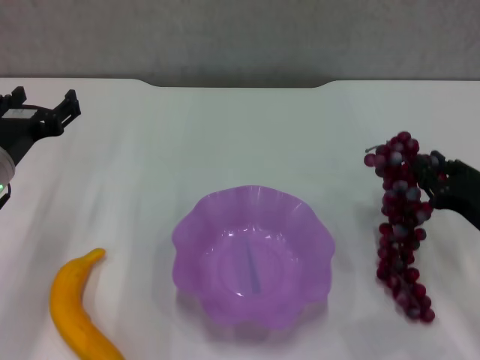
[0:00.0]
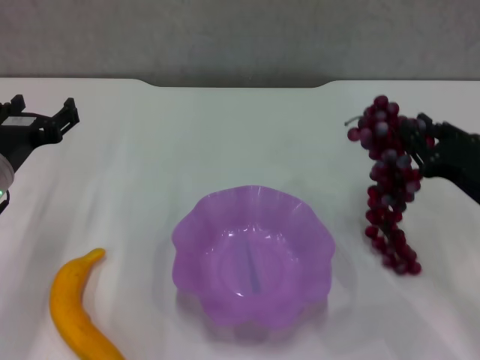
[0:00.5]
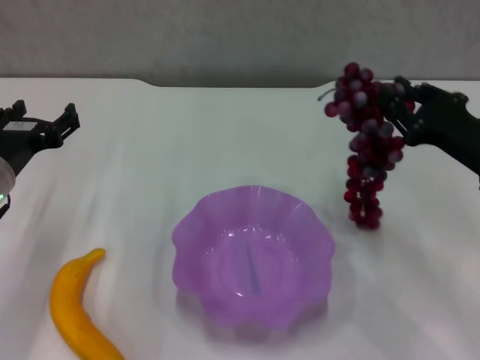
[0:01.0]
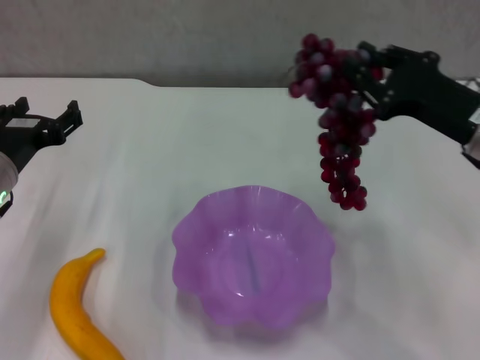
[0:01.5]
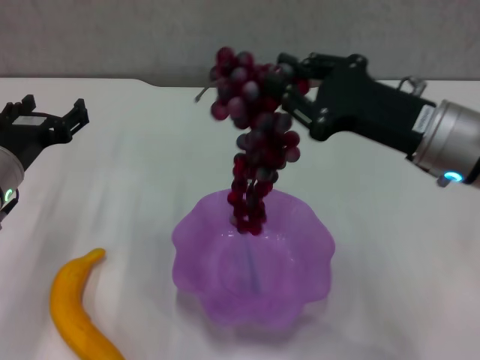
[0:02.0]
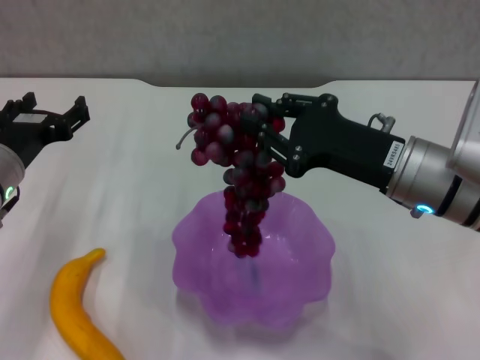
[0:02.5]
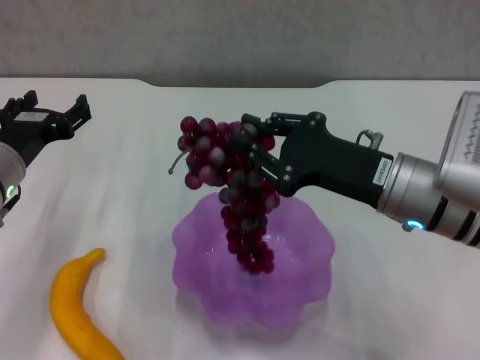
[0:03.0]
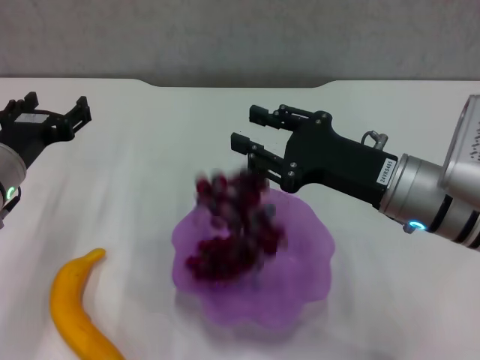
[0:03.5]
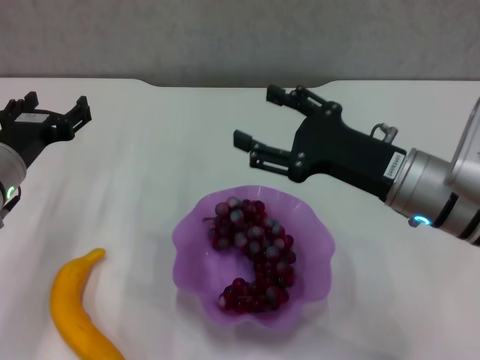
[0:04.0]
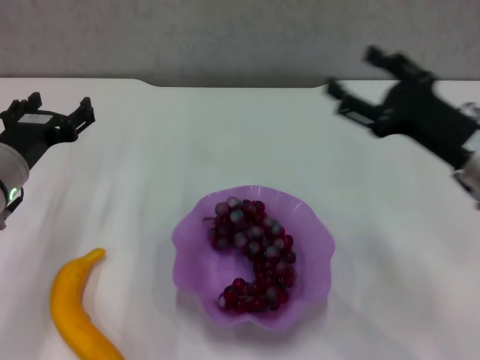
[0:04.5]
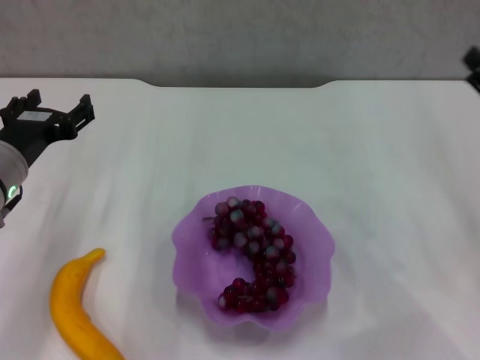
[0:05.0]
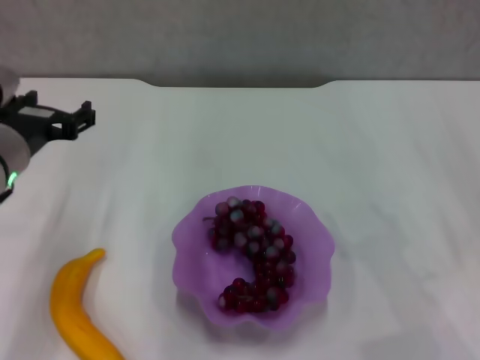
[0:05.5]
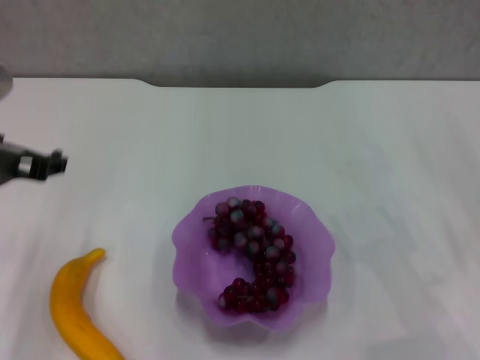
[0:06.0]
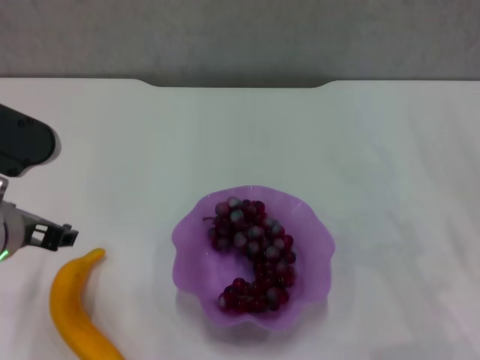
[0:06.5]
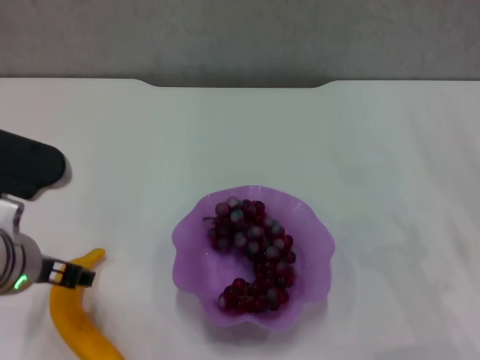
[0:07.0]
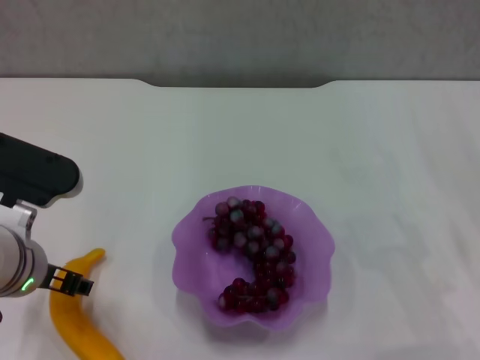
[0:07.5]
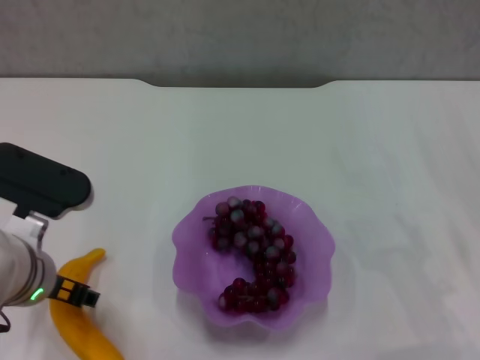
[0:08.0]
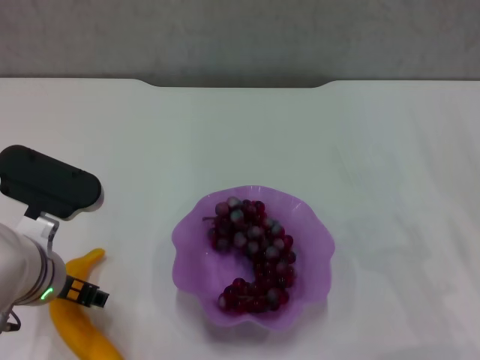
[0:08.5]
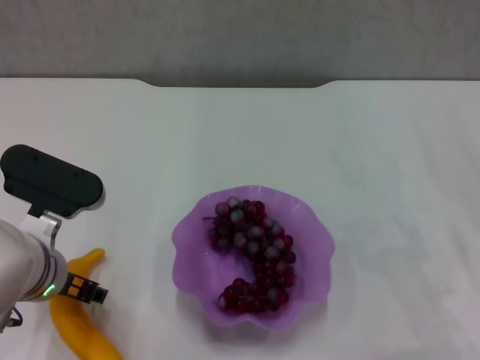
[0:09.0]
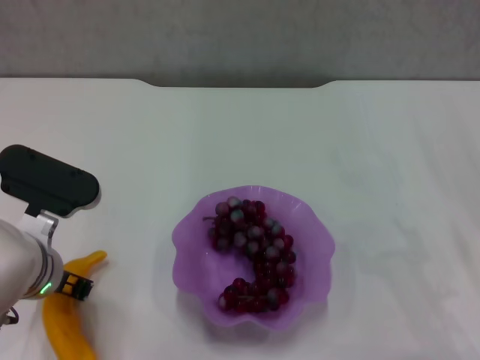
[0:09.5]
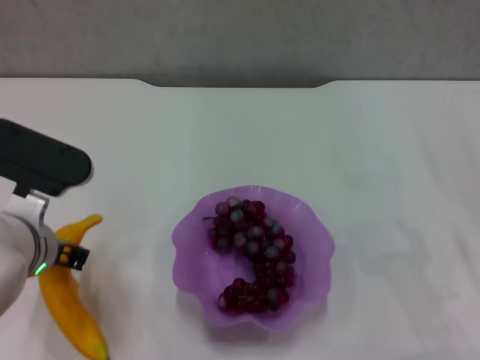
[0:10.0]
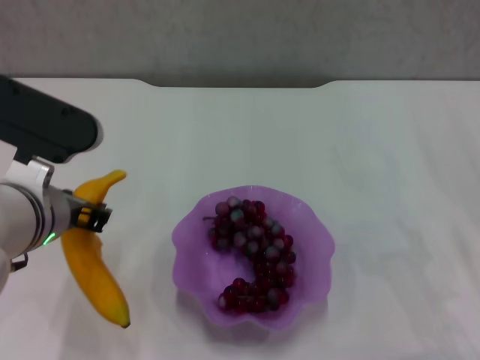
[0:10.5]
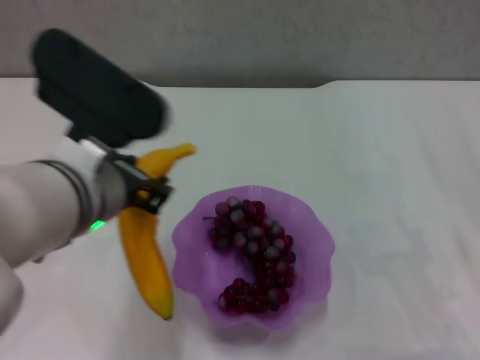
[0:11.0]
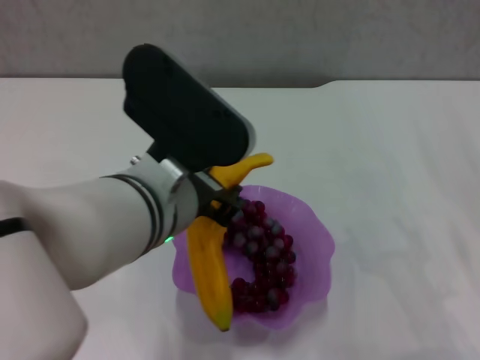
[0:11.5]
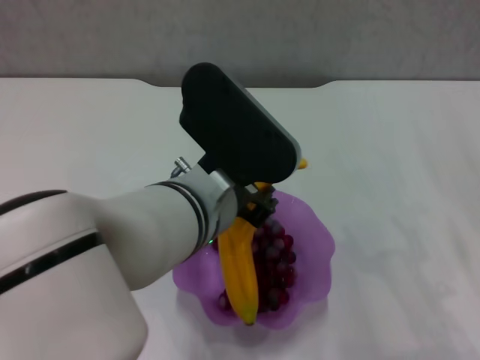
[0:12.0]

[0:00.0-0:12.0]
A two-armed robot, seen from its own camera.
Step, 0:00.0 to 0:03.5: Place the grape in the purple plate with right gripper.
Step, 0:04.0 to 0:09.5: Grasp the banana with left gripper.
0:00.0 to 0:02.0: The right gripper moves upward and to the left, roughly 15 cm.
0:02.0 to 0:04.0: The right gripper opens its fingers.
0:04.0 to 0:06.0: The left gripper is displaced upward and backward by about 10 cm. The right gripper travels to the right by roughly 15 cm.
0:06.0 to 0:08.0: The left gripper heads downward, covering some 10 cm.
0:08.0 to 0:10.0: The left gripper closes.
0:10.0 to 0:12.0: The left gripper goes some 15 cm to the right and upward.

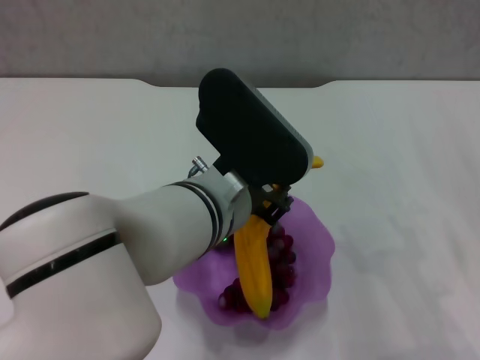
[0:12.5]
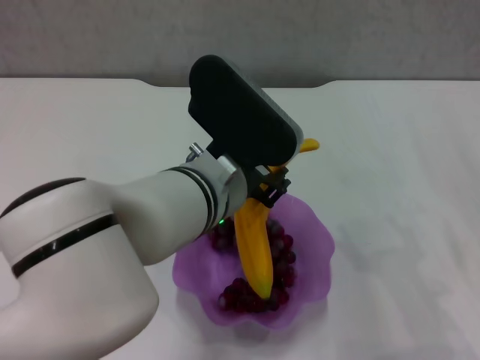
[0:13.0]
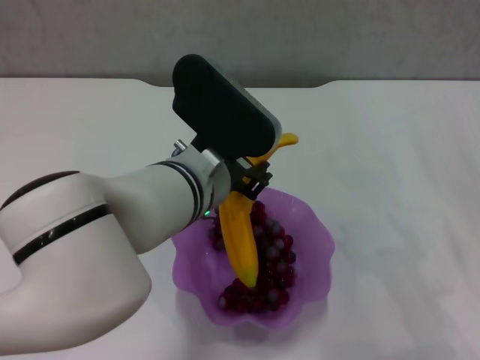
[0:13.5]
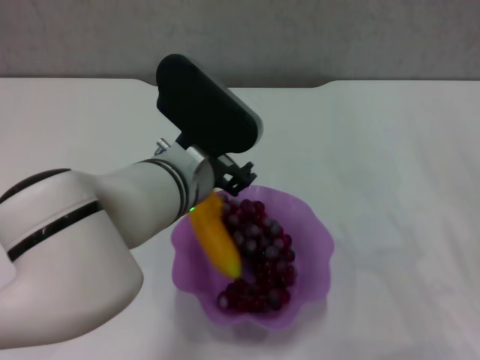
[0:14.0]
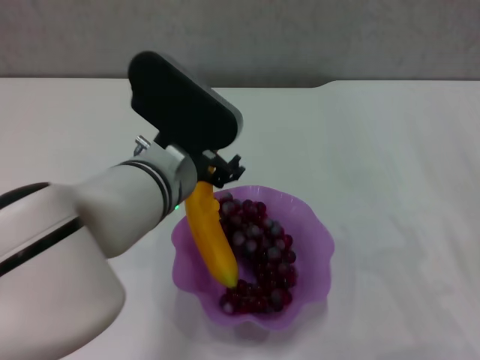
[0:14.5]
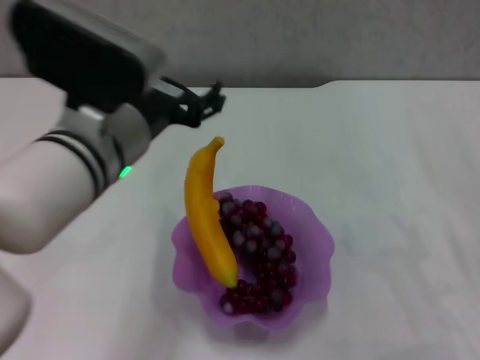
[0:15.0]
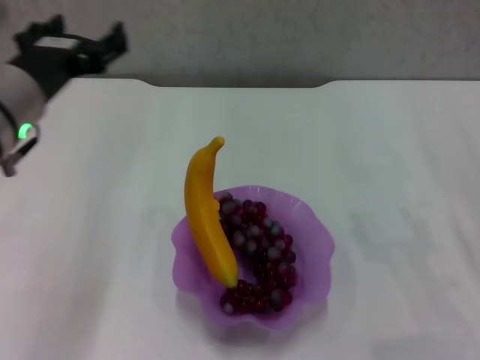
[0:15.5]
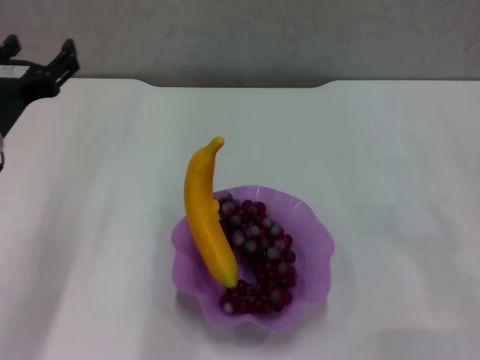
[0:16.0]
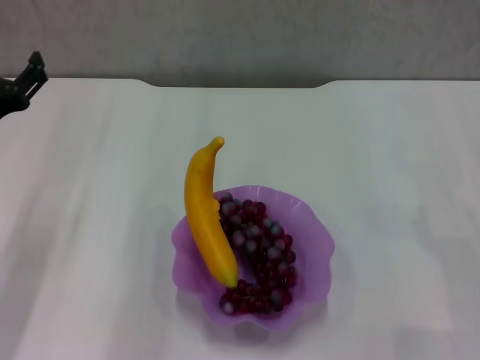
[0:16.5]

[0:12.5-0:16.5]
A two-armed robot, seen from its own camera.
Step, 0:12.5 to 0:14.5: Place the banana in the purple plate with left gripper.
0:12.5 to 0:14.5: The left gripper moves approximately 5 cm, and opens.
0:14.5 to 0:16.5: The left gripper travels to the left by roughly 20 cm.
